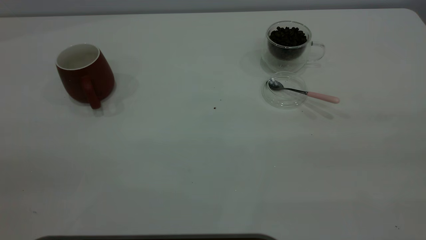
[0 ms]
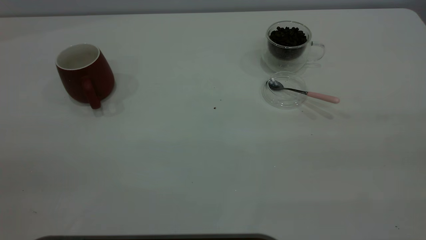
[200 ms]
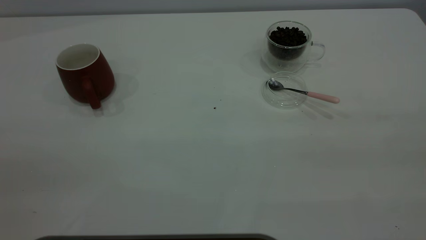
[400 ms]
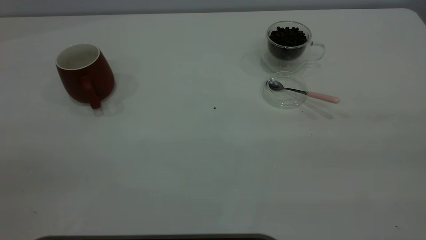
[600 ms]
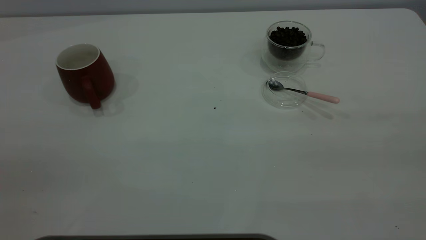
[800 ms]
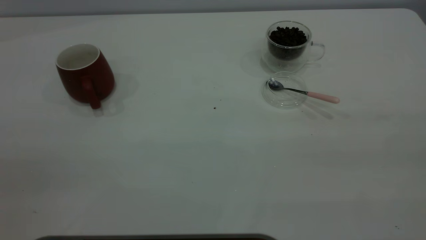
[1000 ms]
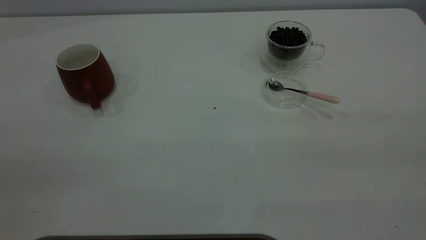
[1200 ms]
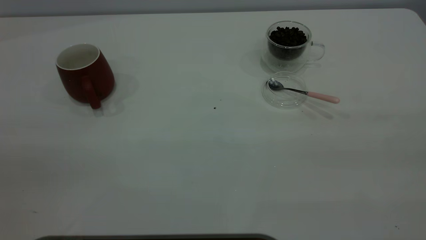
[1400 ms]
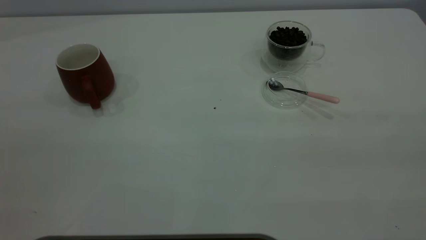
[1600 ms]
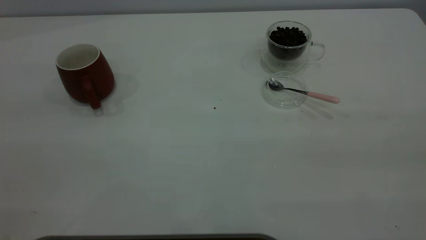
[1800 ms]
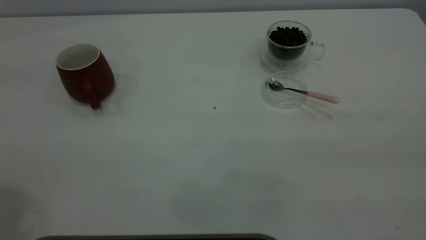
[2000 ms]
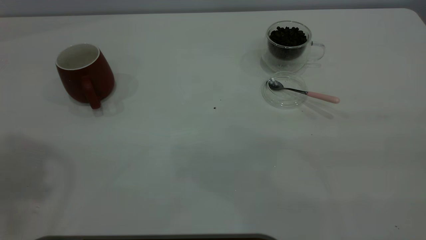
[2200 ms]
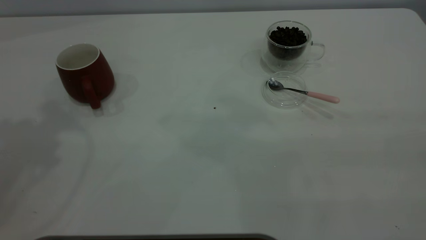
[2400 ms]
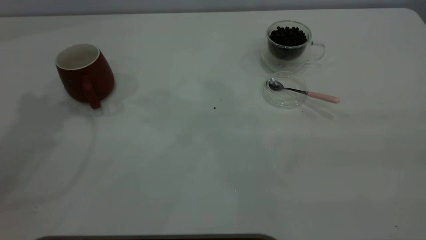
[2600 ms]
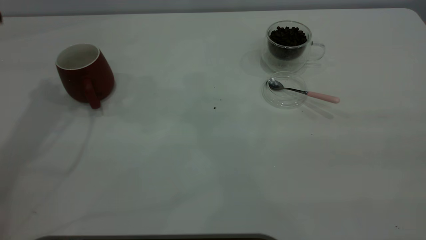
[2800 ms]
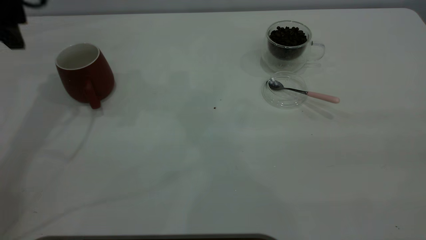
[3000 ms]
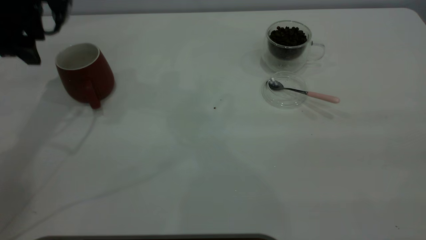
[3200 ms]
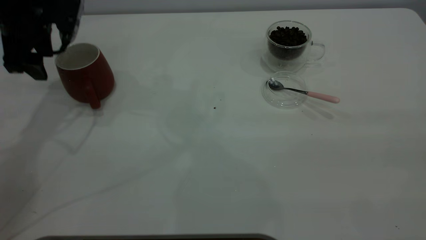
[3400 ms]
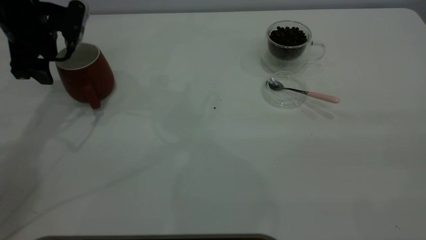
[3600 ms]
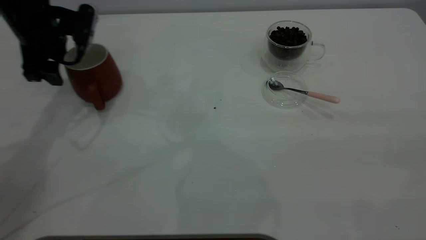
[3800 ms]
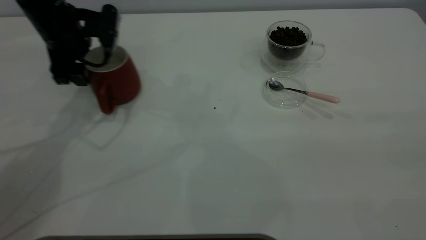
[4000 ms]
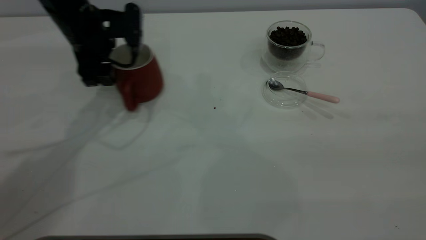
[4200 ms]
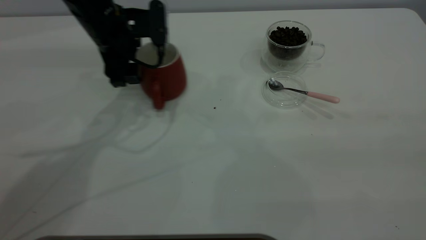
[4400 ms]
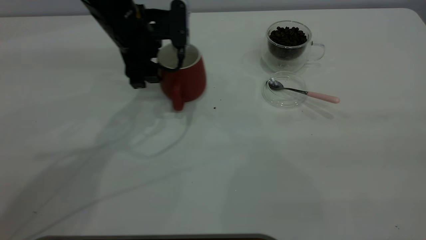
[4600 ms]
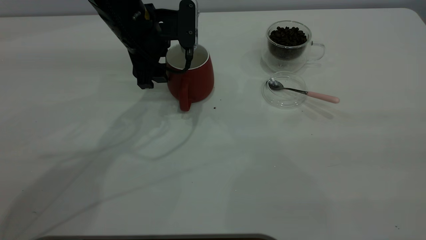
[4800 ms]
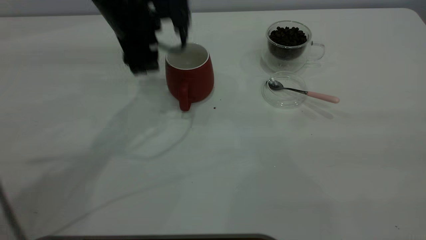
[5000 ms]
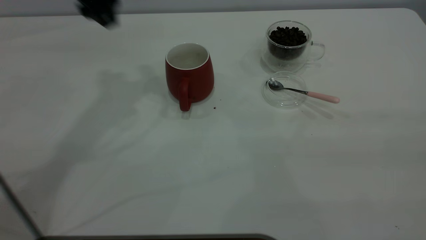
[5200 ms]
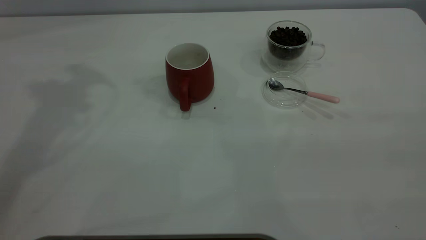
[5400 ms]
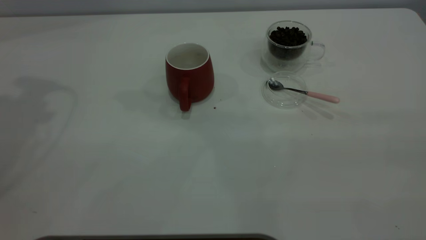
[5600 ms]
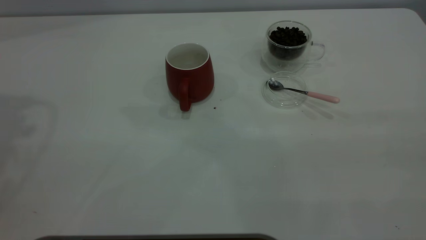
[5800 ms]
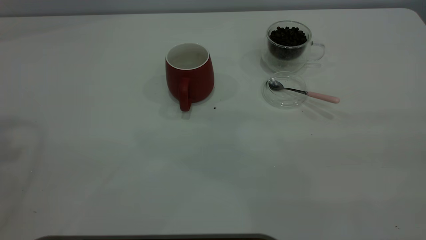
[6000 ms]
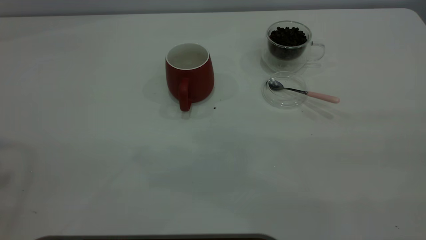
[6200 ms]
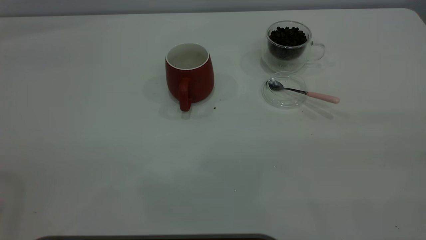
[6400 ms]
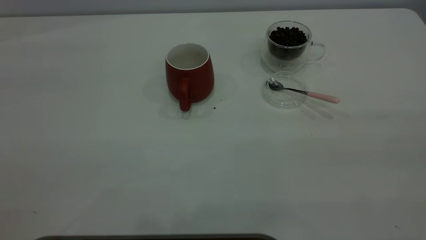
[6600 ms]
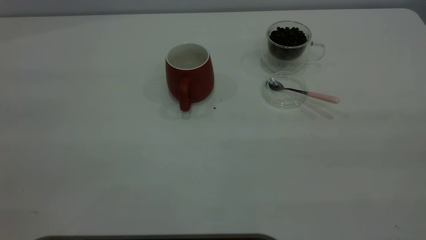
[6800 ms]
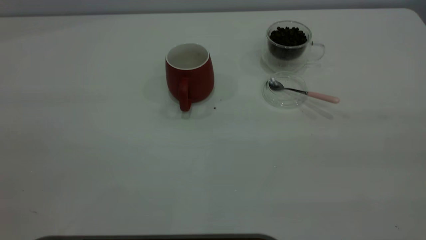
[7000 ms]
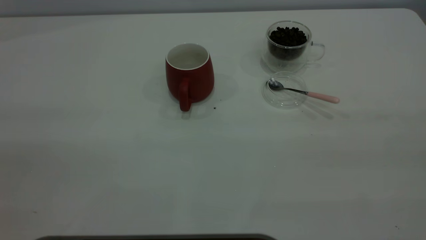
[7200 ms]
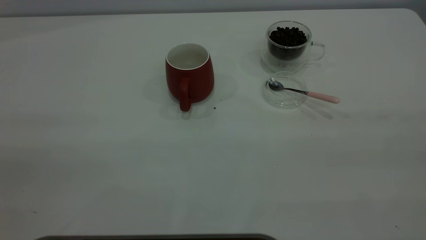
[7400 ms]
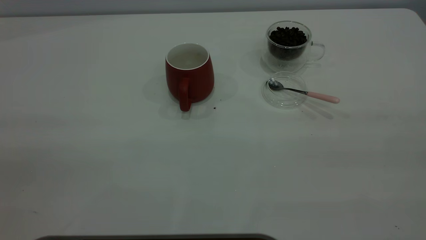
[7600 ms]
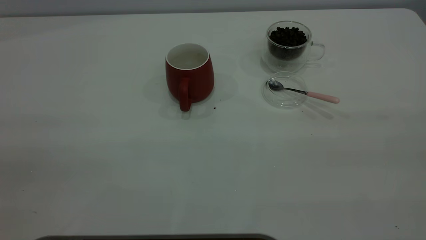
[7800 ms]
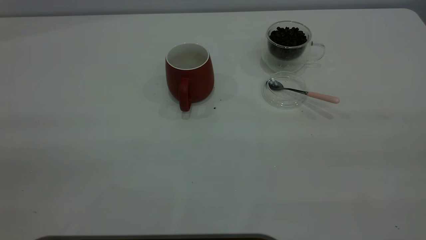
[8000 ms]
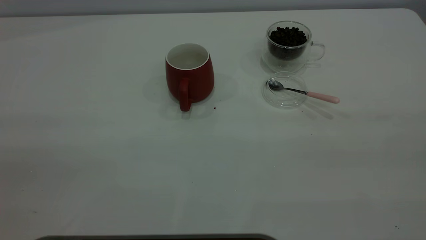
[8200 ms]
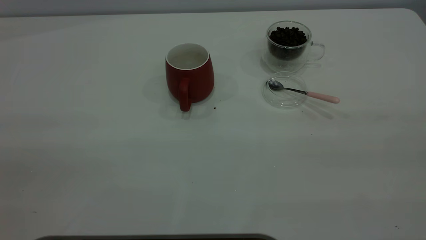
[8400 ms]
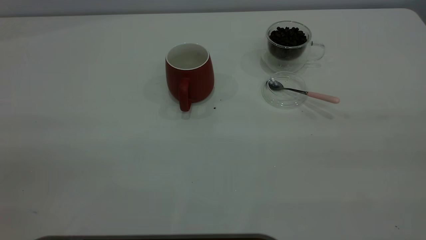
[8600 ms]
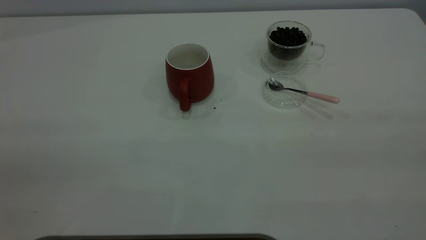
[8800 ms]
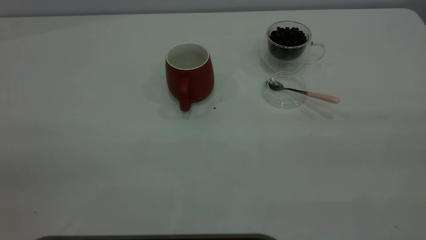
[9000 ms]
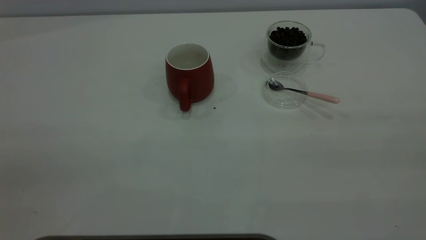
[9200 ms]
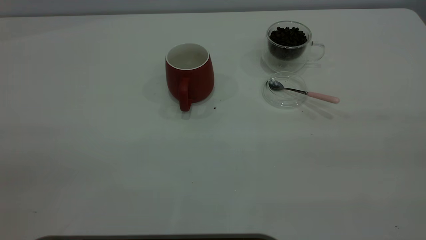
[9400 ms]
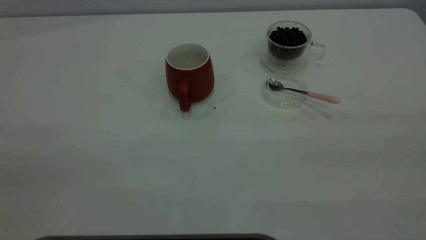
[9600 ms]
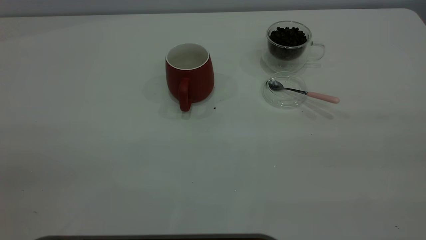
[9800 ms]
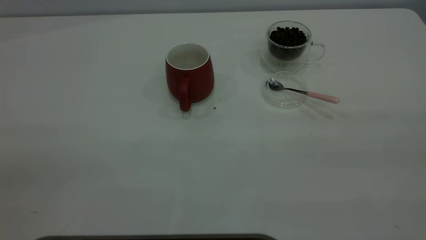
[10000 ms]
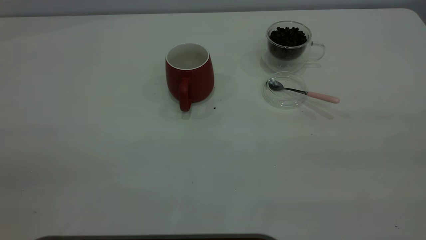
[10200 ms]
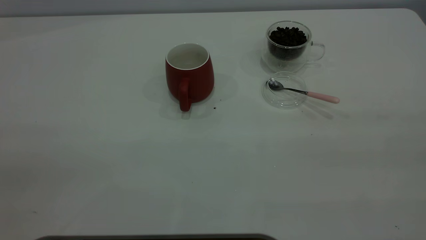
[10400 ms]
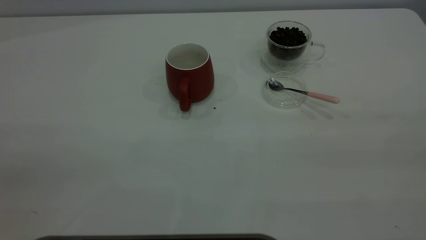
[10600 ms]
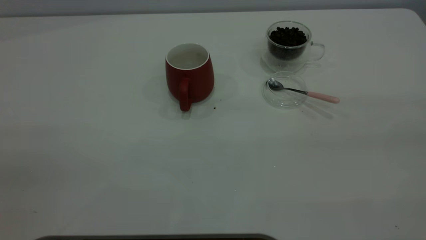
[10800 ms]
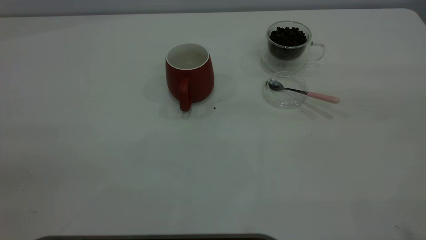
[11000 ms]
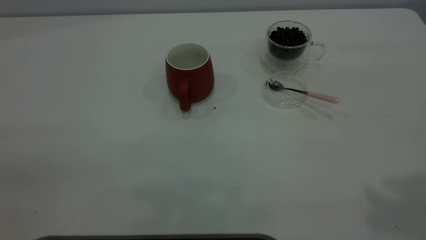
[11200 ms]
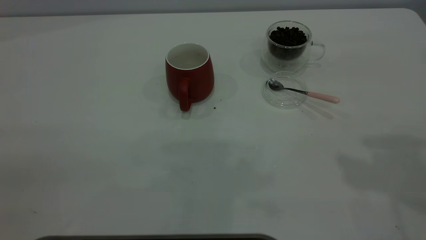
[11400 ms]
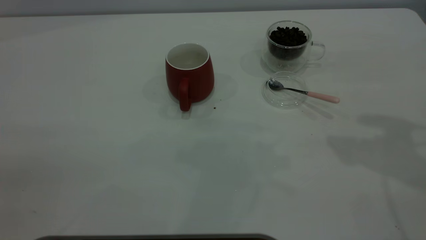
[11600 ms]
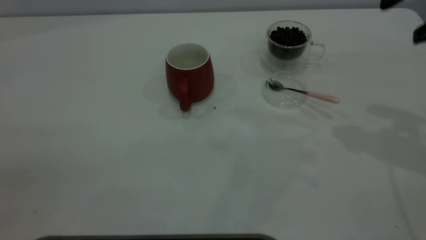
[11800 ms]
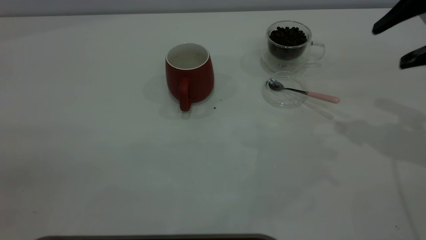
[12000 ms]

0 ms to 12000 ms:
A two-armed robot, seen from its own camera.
Task of the whole recording: the left gripper place the red cup in the center of the table, the right gripper take the pink spoon from the cup lid and scoop out the coffee beans from the coffee cup and put them into the red cup, the right gripper put the spoon back into the cup lid.
Step, 0 ms to 5000 ms: Move the cup to the center of view.
1600 ms to 3000 ms: The left gripper heads forward and downward, covering some 40 cm.
3000 ms to 4400 ms: The left gripper travels to the right and downward by about 15 cm.
4400 ms to 6000 ms: The left gripper moves upward, to the left and backward, roughly 40 cm.
9000 ms to 10400 ms: Both grippers stay put.
10400 ms to 12000 ms: The right gripper heads forward and downward, covering roughly 35 cm.

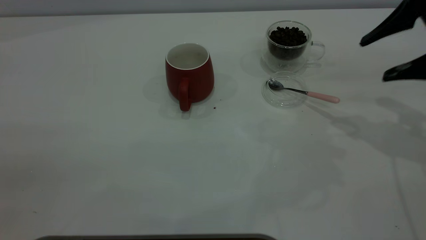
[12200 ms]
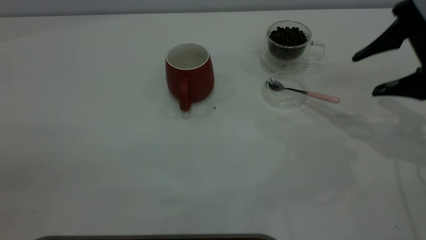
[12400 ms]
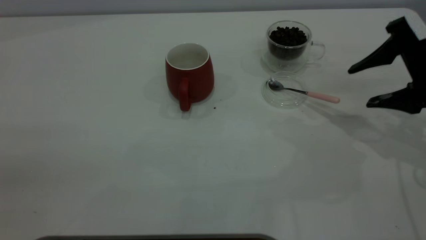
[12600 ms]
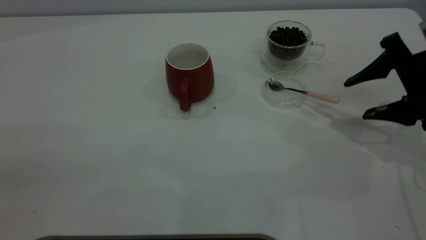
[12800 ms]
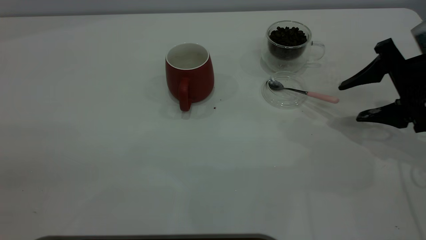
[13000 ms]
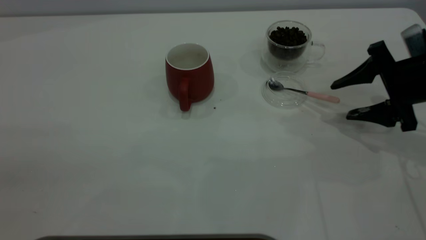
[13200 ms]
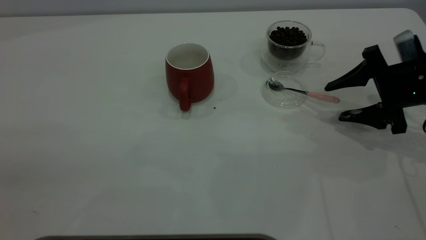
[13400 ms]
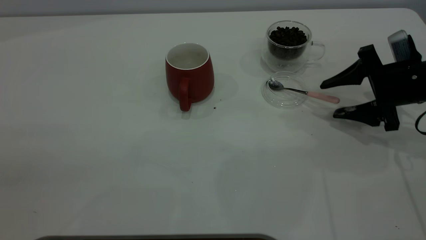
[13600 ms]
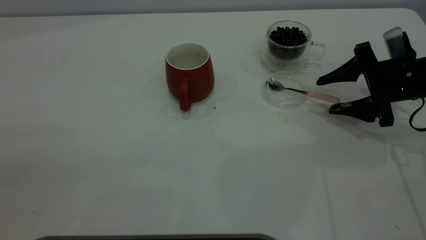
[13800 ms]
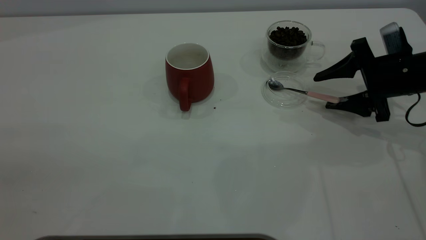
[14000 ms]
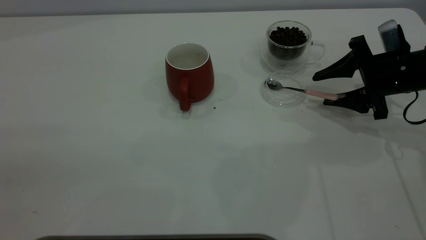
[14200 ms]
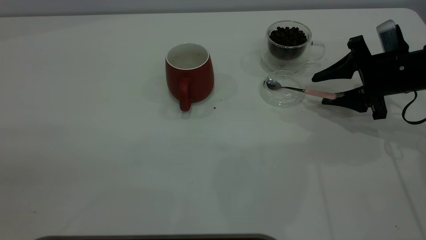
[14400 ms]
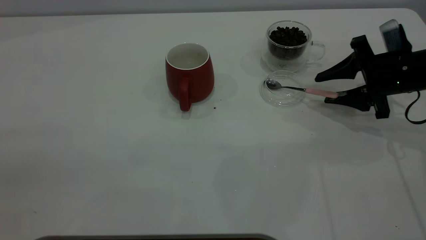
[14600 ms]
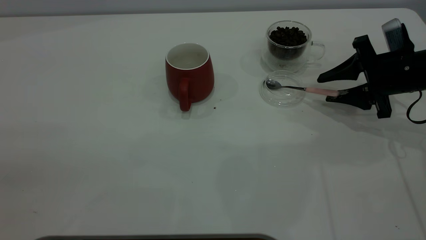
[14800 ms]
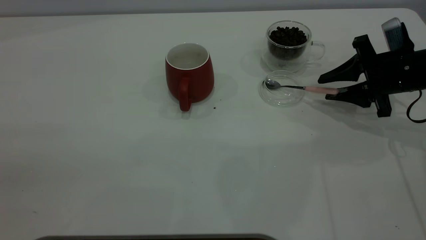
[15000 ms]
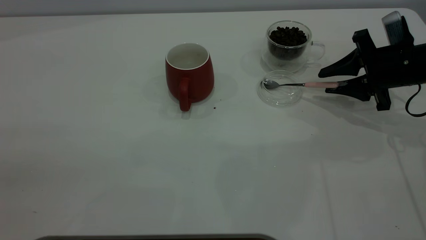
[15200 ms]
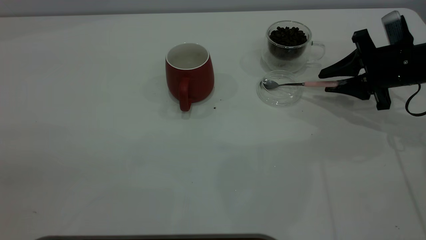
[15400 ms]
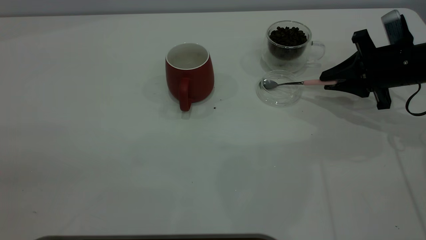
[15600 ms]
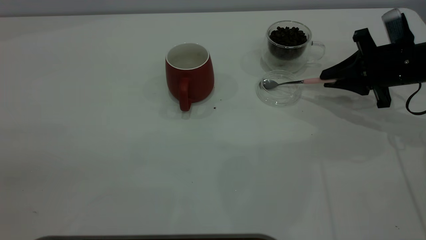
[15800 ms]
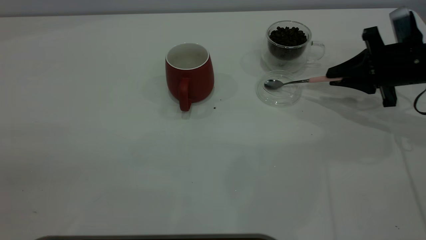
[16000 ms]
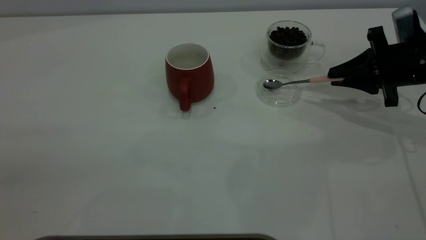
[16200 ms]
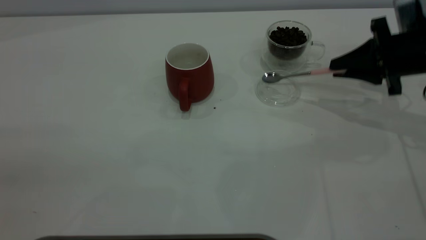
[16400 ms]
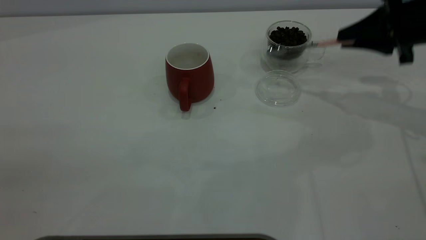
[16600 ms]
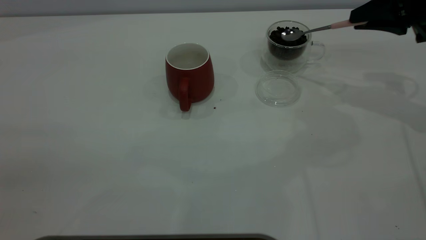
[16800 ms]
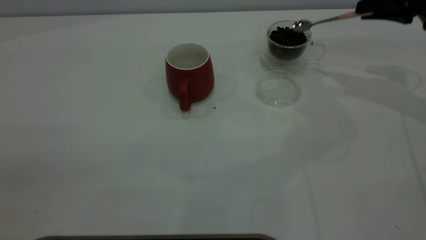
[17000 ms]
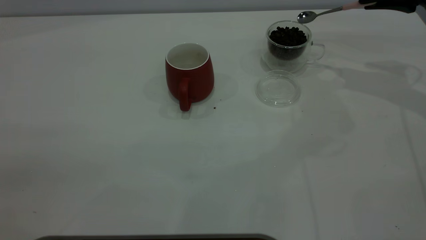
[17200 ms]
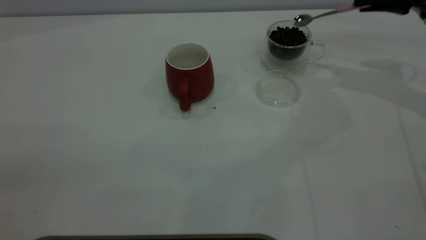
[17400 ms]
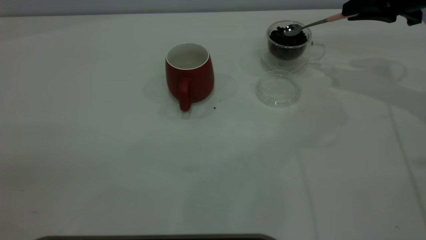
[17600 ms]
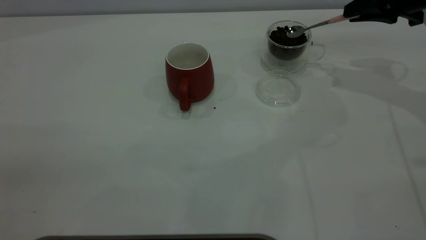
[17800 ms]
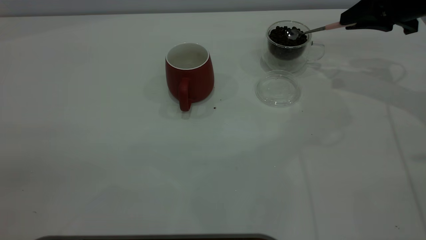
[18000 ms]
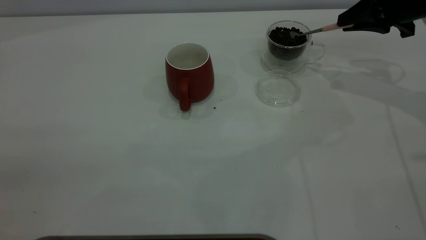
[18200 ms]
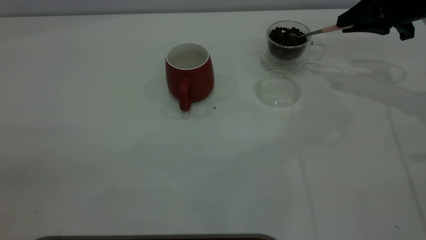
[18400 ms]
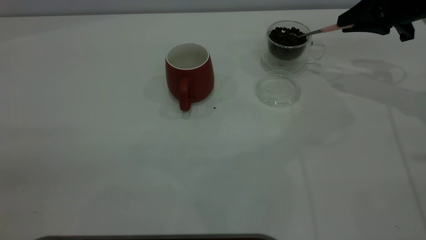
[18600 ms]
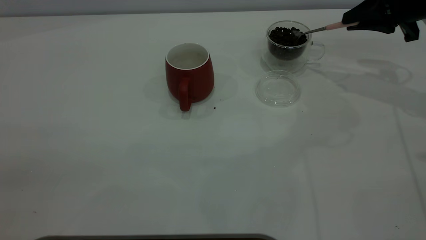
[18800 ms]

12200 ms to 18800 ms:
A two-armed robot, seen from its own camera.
Task of the whole recording: the left gripper place the red cup in the center of the table, the right gripper take the pink spoon from the cup lid and scoop out the coffee beans from the coffee cup and put them into the red cup, the right gripper put the spoon back into the cup lid.
Step, 12200 ms to 16400 ms: Pick up the spoon.
12200 ms to 13800 ms: The right gripper goes approximately 10 cm downward.
13800 ms to 15400 ms: The right gripper closes up.
15400 ms to 17200 ms: The right gripper moves upward, approximately 10 cm.
17200 ms to 18800 ms: The grippers make only small movements.
